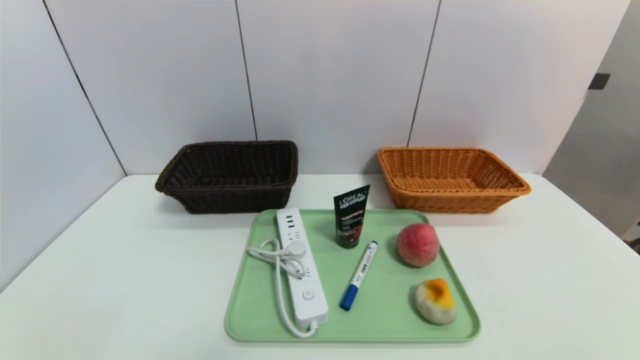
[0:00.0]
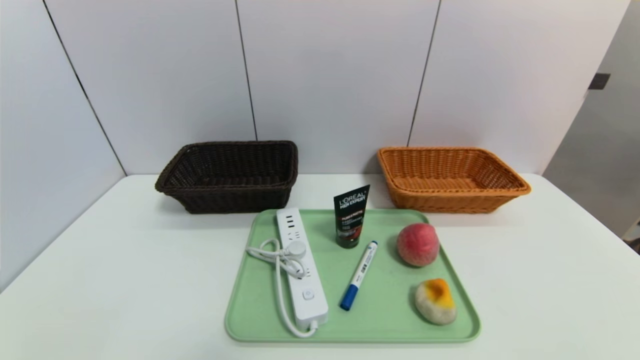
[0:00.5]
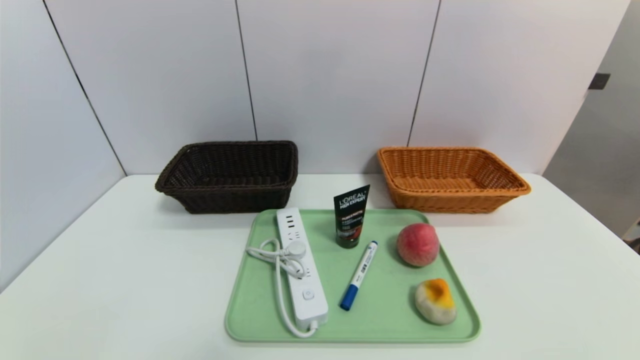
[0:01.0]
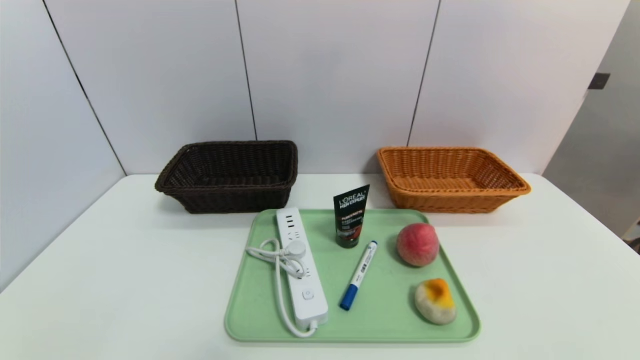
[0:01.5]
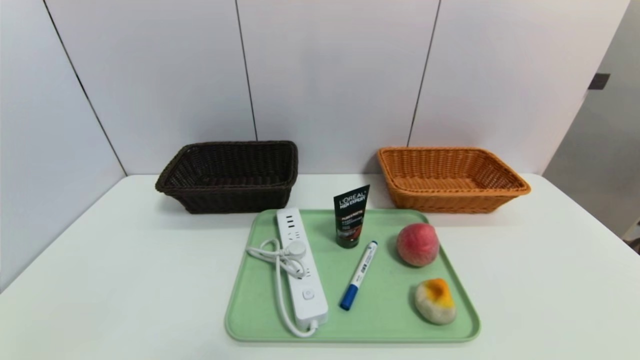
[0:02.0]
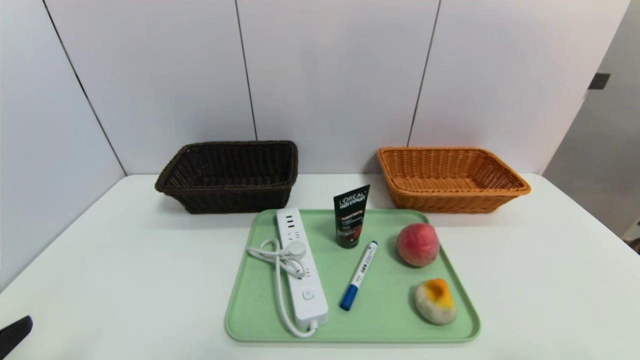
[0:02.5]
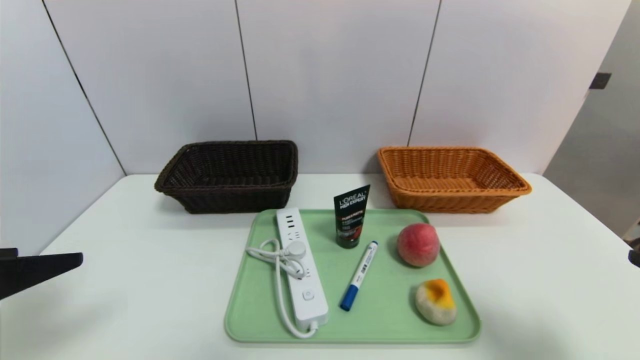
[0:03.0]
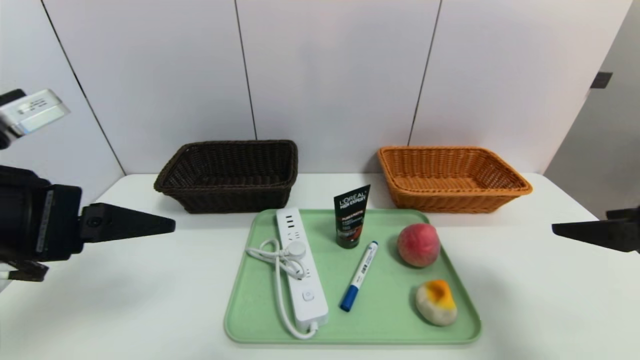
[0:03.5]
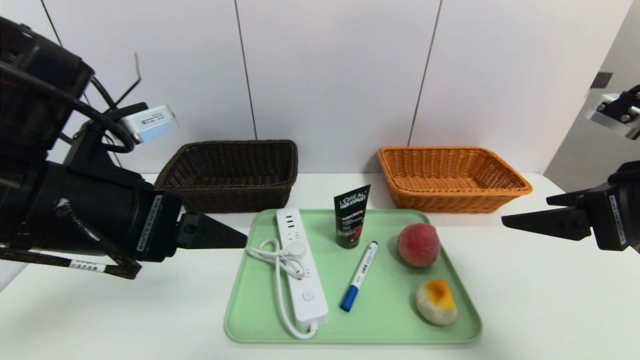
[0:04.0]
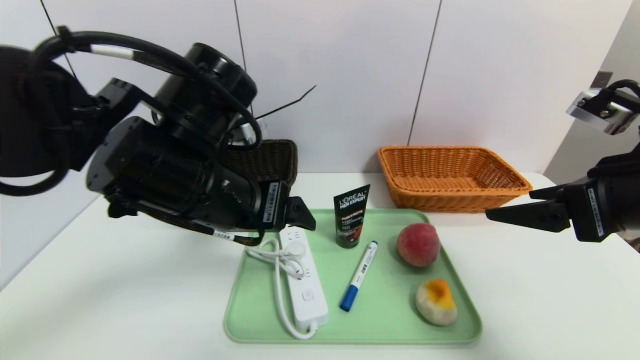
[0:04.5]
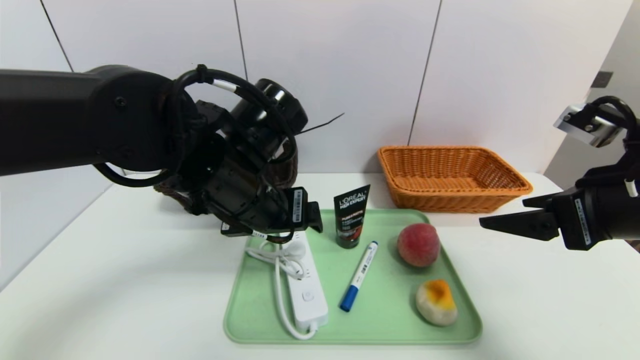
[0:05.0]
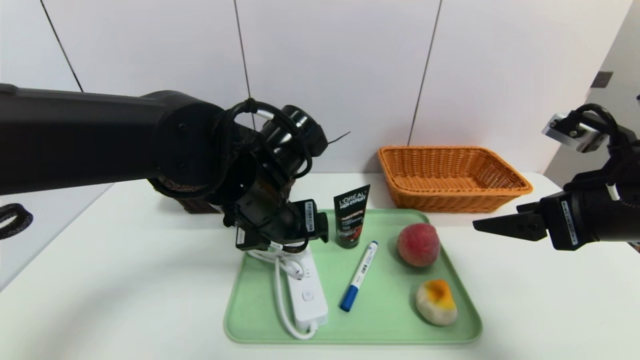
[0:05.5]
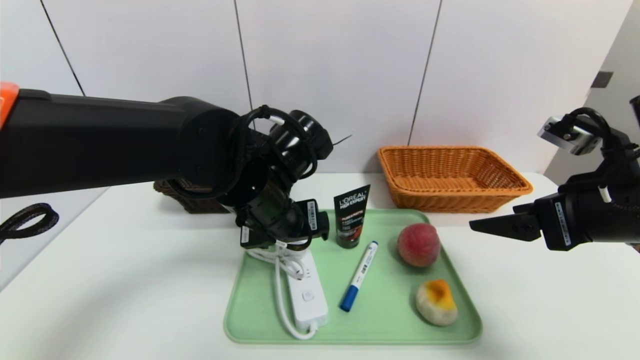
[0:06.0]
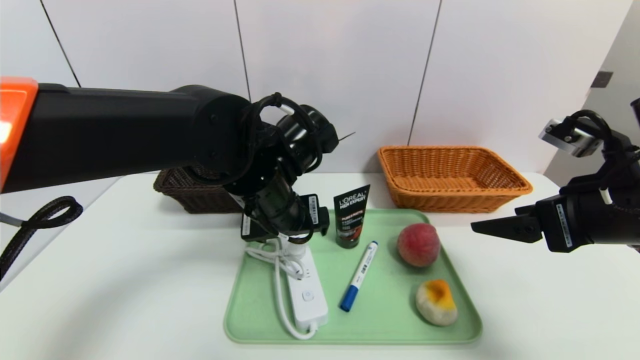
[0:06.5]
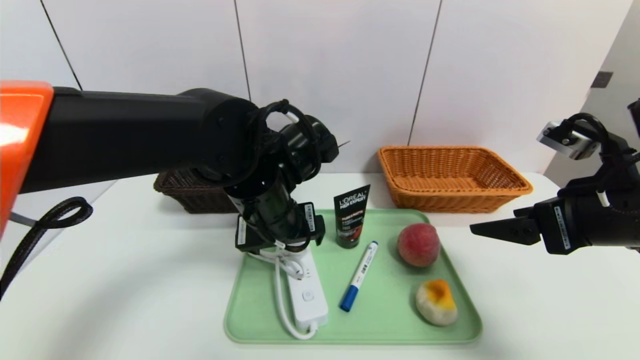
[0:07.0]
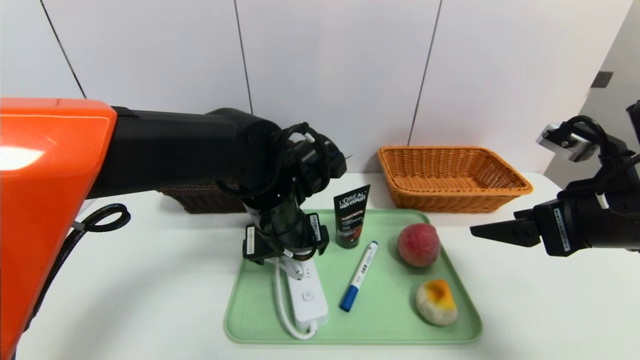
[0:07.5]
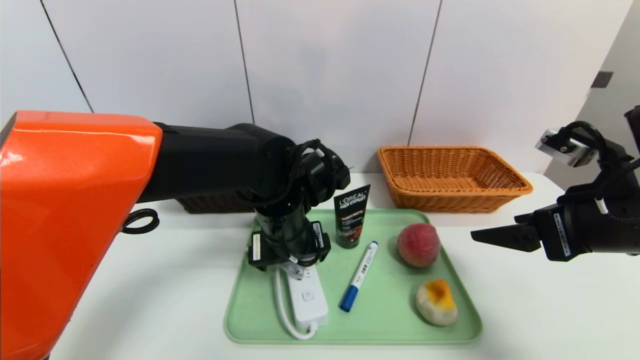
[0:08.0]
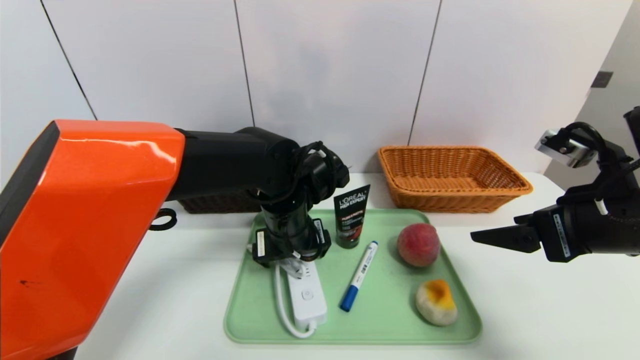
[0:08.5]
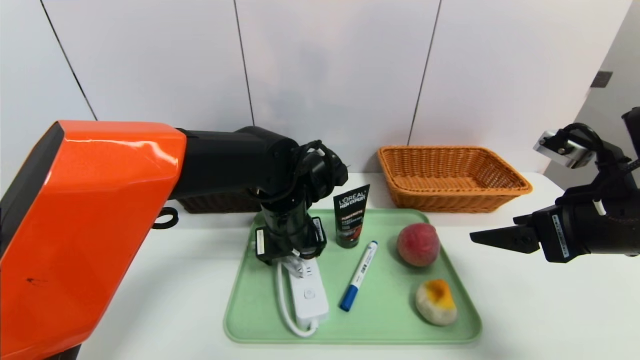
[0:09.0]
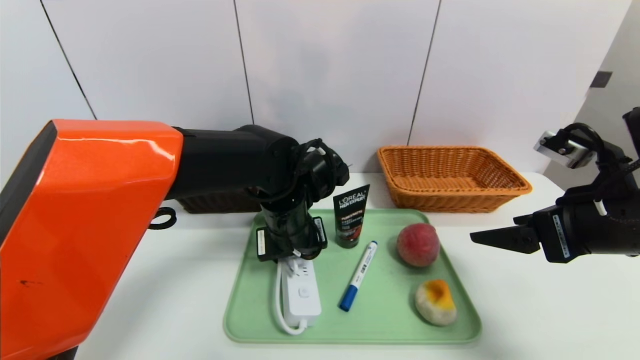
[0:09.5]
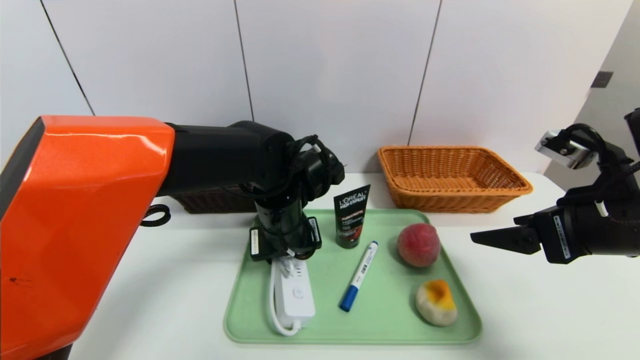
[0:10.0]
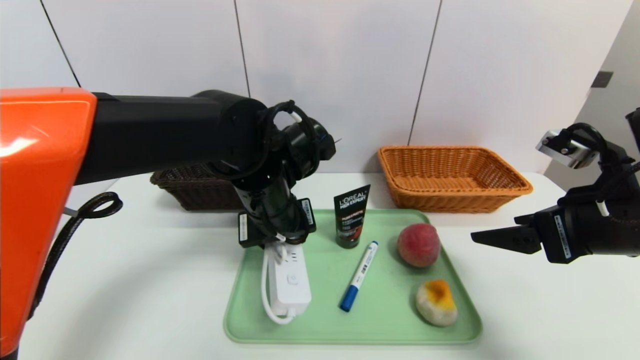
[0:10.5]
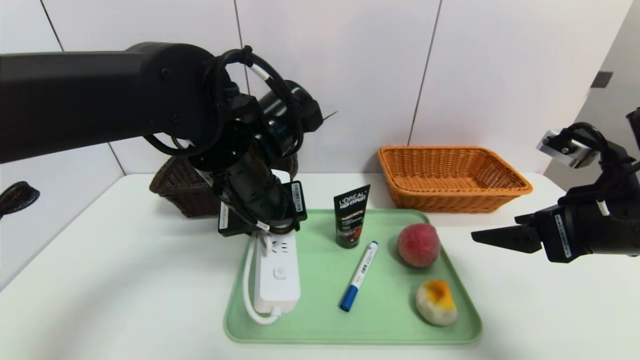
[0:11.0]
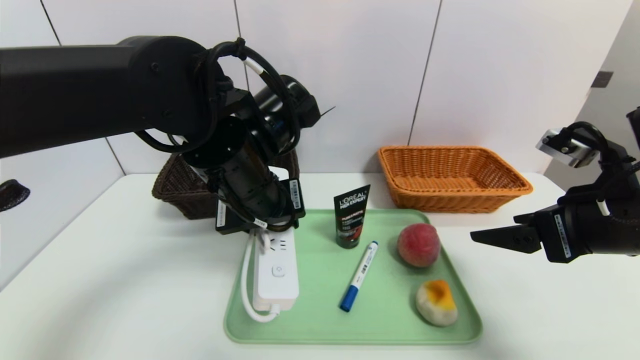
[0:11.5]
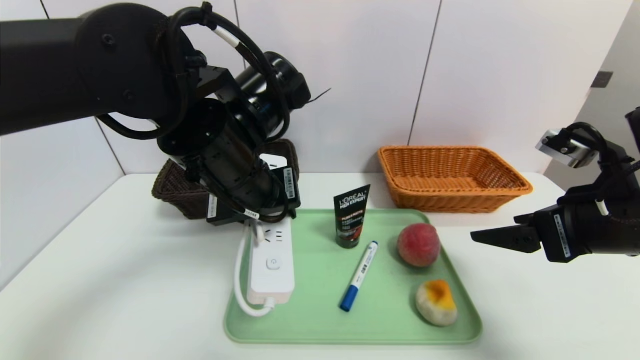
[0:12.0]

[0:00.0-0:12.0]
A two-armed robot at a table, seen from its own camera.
Task of the whole recording: place the food in the right basket with the right gripper, and place the non food items in the left basket with the left gripper.
0:02.0 to 0:04.0: The right gripper shifts approximately 25 cm forward and upward. Meanwhile the left gripper heads forward, upward and to the right, covering some 30 cm.
0:04.0 to 0:06.0: The left gripper goes approximately 20 cm to the right, forward and downward.
0:06.0 to 0:08.0: The left gripper changes place by some 5 cm.
0:08.0 to 0:10.0: The left gripper closes up.
0:10.0 to 0:12.0: The left gripper goes about 10 cm upward and backward.

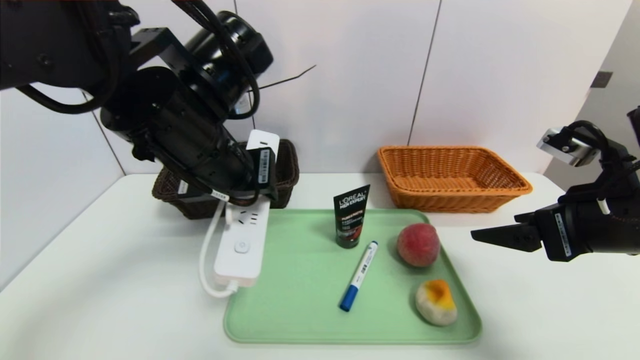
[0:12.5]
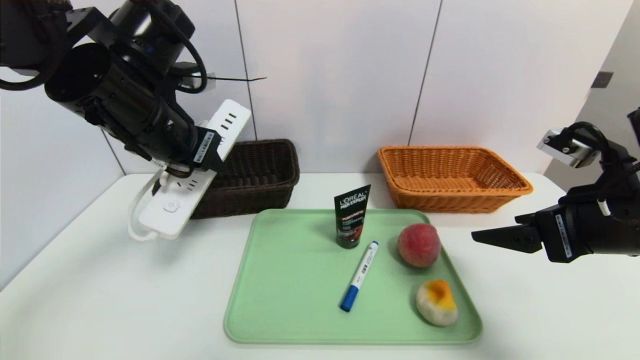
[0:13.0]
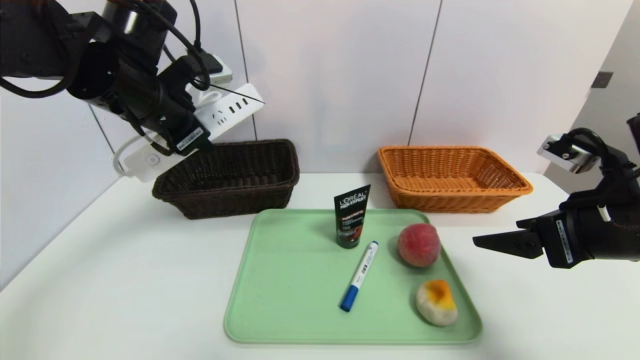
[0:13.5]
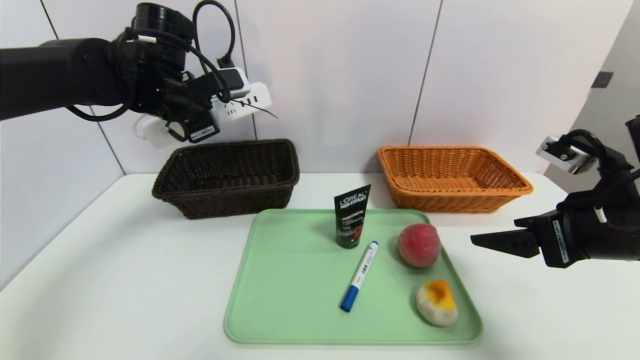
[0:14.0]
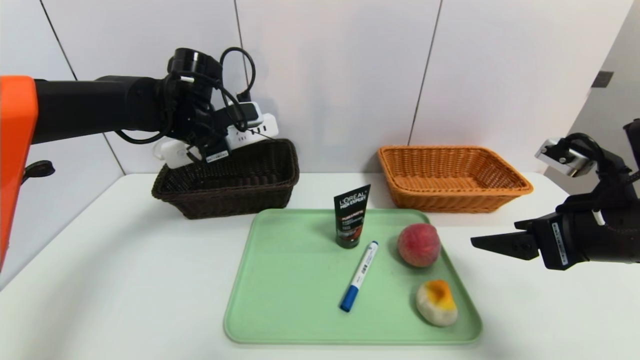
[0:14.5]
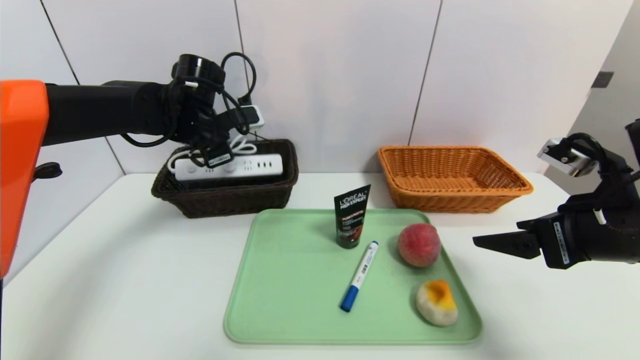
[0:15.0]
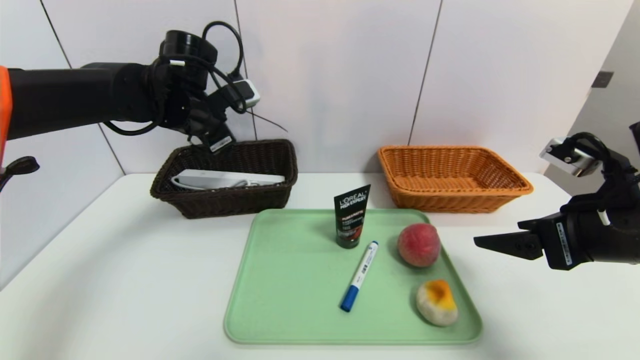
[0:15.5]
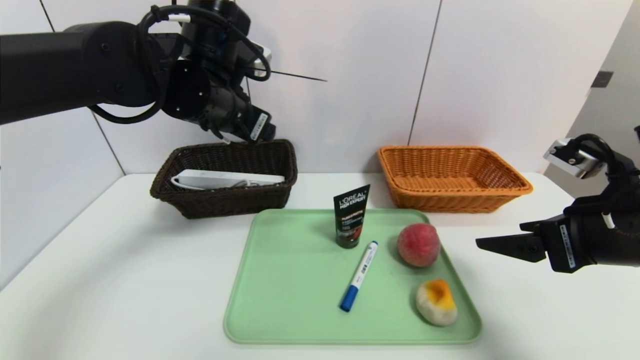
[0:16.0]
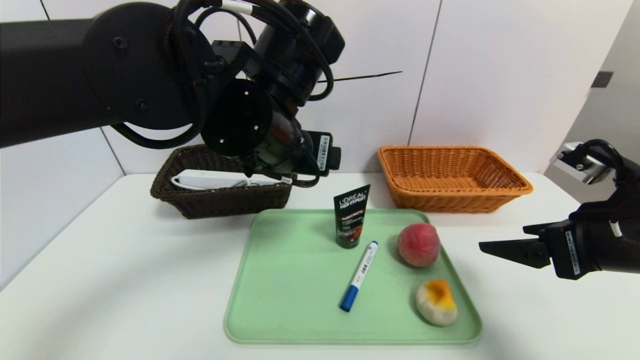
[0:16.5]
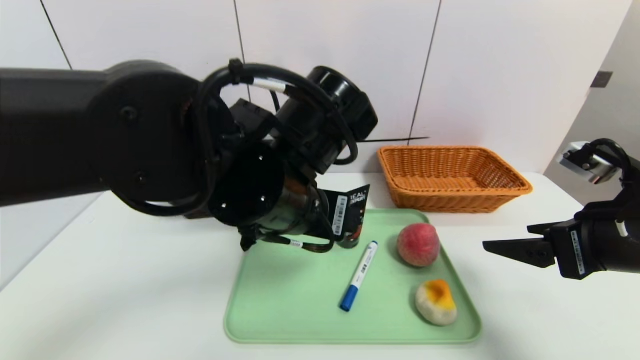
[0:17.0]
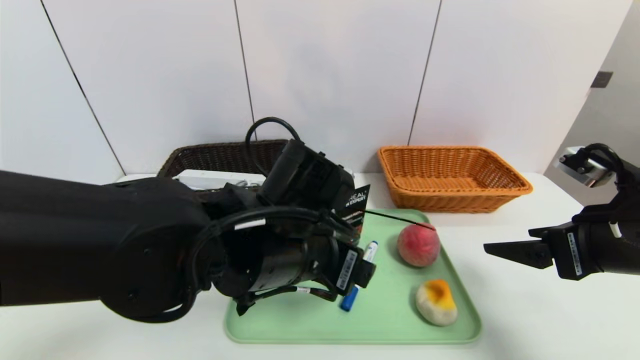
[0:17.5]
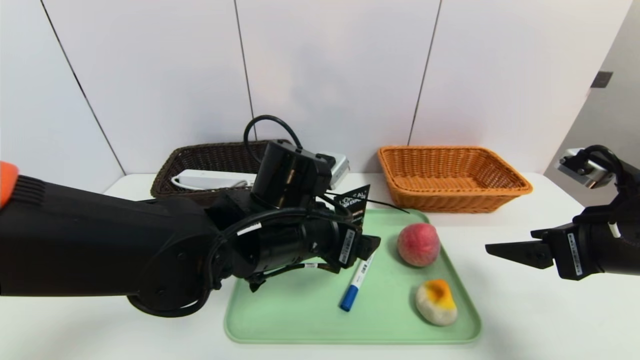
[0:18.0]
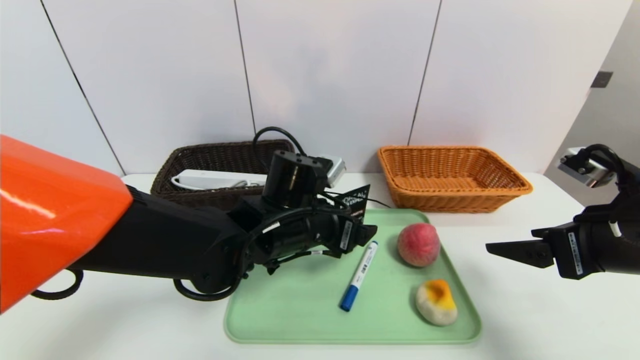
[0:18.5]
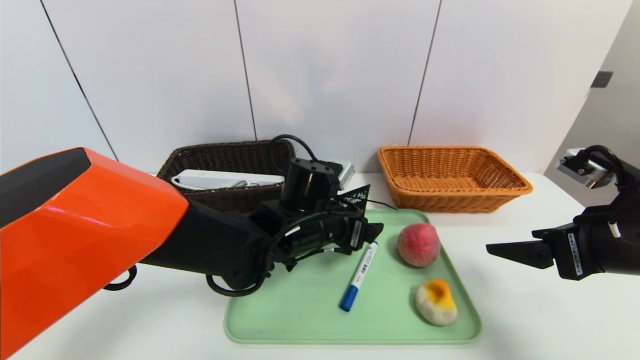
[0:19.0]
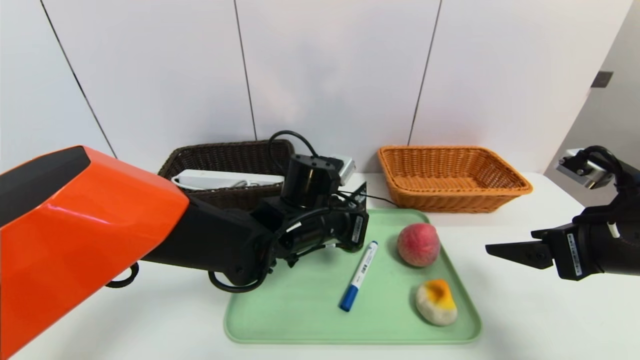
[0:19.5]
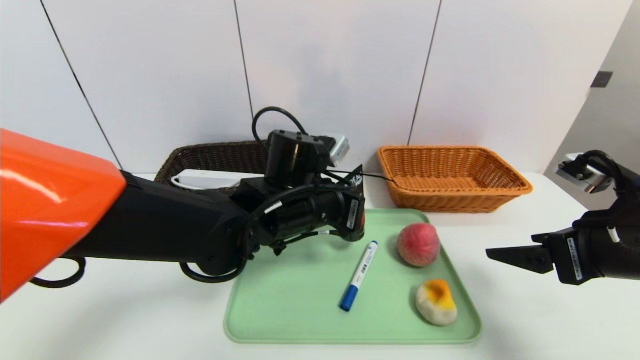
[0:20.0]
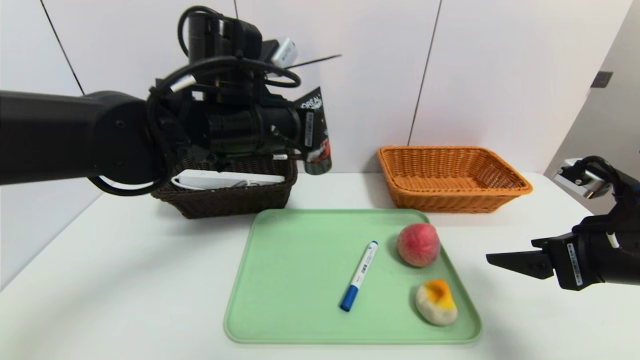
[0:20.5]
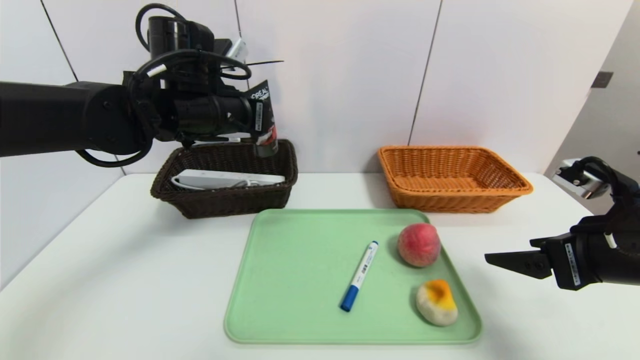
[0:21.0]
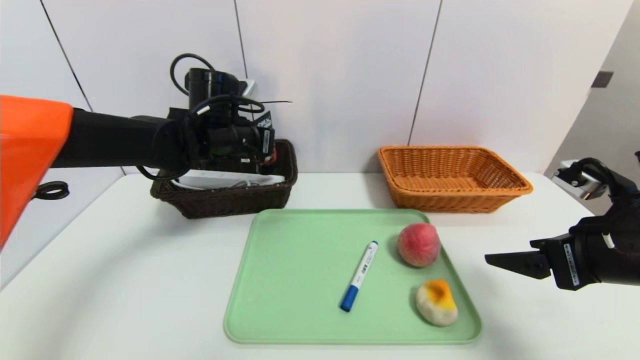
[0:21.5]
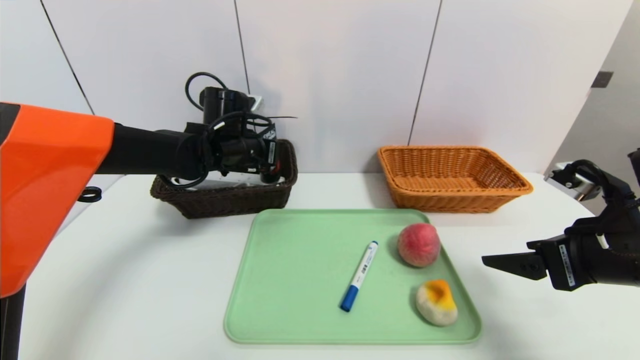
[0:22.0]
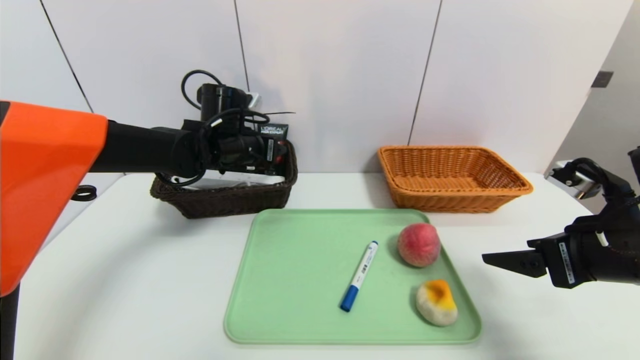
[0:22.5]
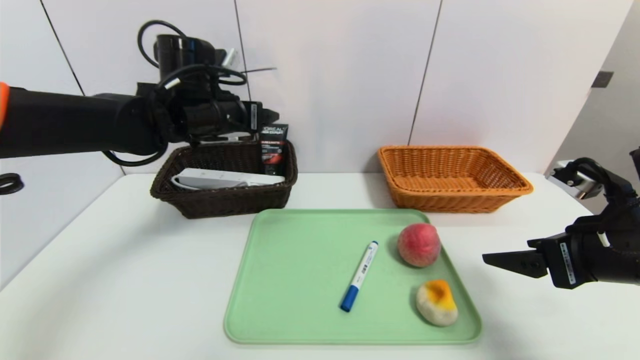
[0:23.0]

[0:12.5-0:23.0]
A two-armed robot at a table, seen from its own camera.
Task of the whole recording: place the food in the right basket with the right gripper, and place the non food items in the left basket with the left gripper.
Step, 0:12.5 to 0:15.0: Grasp the power strip and put it in the left basket.
Step, 0:15.5 to 0:22.5: Grasp the soft cleanser and put it in the left basket.
0:12.5 to 0:14.5: The left gripper travels forward and to the left by about 20 cm.
0:14.5 to 0:16.5: The left gripper goes approximately 20 cm backward and to the right, and opens its fingers.
0:16.5 to 0:19.0: The left gripper moves downward, some 15 cm.
0:19.0 to 0:21.0: The left gripper travels upward and to the left by roughly 20 cm, and closes its fingers.
0:21.0 to 0:23.0: The left gripper moves roughly 10 cm downward and comes back, and opens up.
